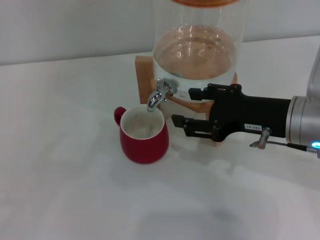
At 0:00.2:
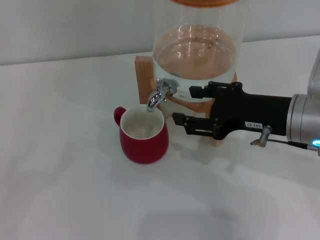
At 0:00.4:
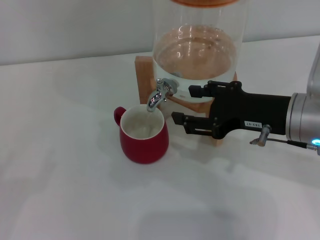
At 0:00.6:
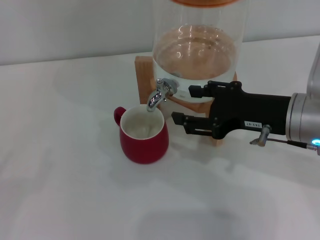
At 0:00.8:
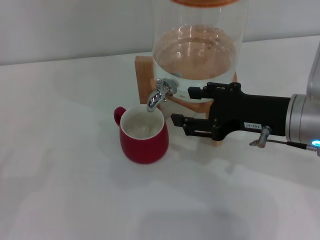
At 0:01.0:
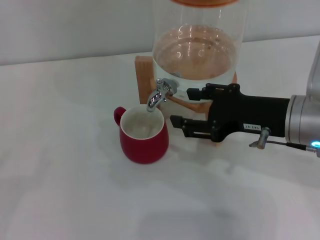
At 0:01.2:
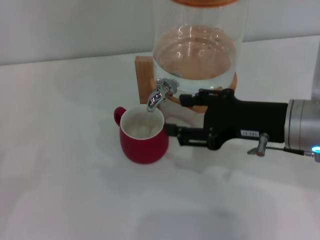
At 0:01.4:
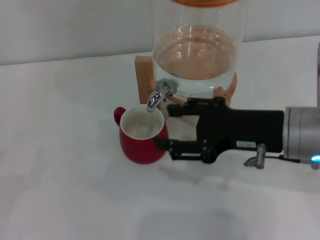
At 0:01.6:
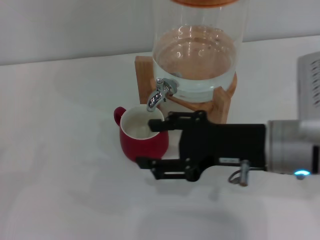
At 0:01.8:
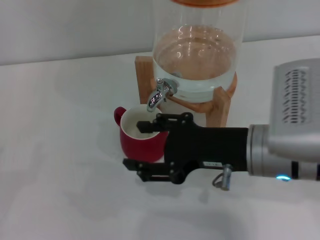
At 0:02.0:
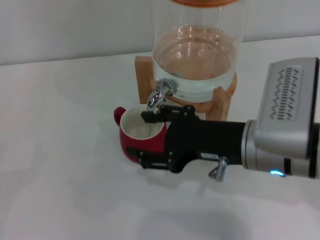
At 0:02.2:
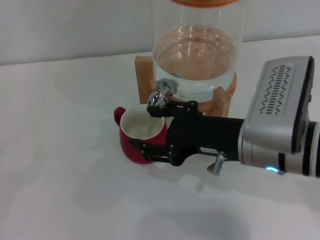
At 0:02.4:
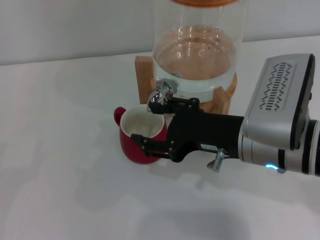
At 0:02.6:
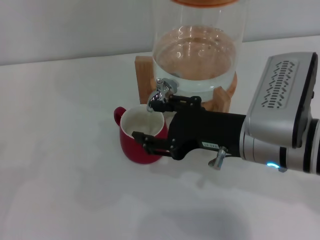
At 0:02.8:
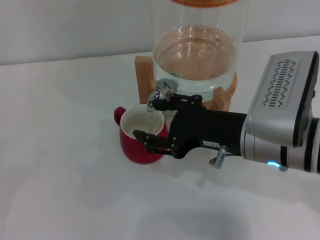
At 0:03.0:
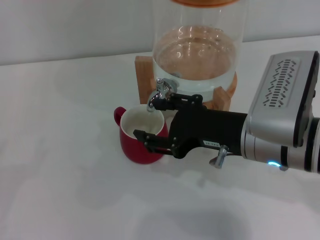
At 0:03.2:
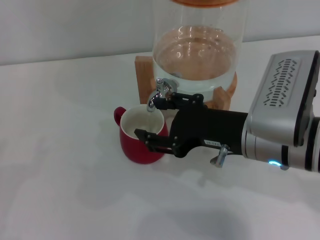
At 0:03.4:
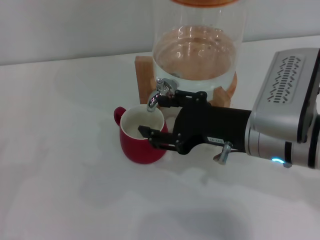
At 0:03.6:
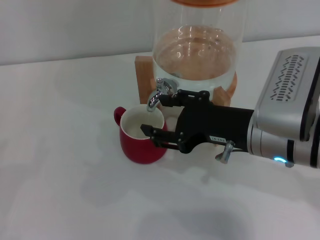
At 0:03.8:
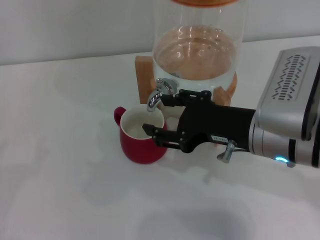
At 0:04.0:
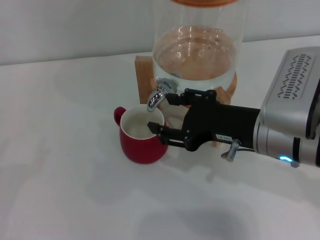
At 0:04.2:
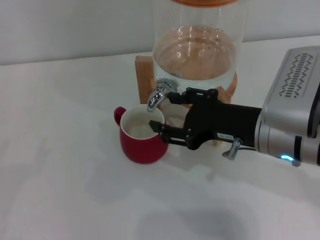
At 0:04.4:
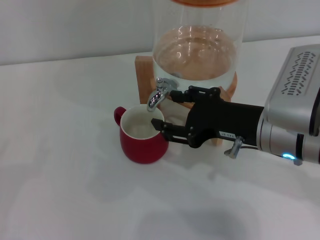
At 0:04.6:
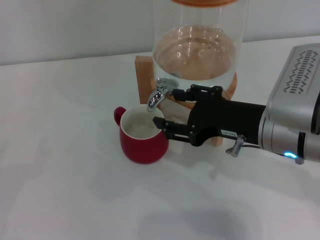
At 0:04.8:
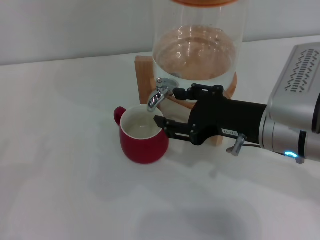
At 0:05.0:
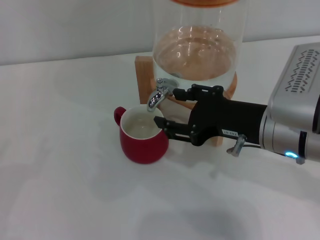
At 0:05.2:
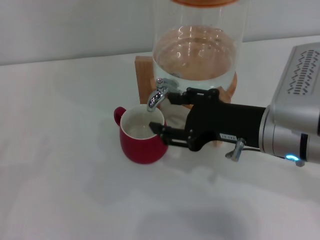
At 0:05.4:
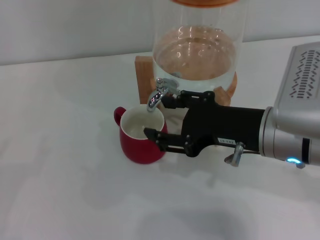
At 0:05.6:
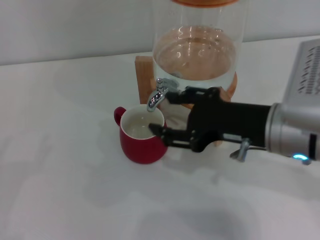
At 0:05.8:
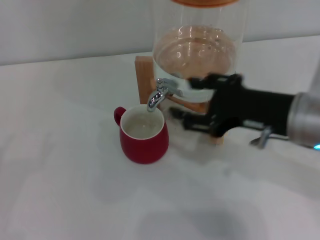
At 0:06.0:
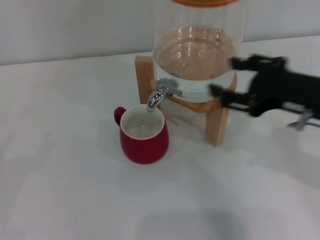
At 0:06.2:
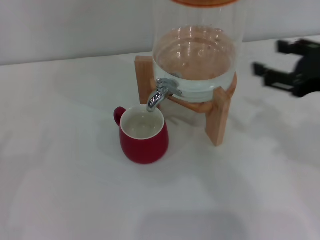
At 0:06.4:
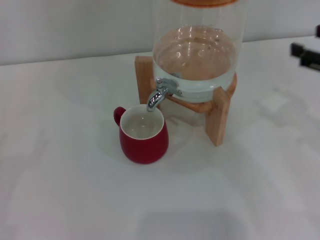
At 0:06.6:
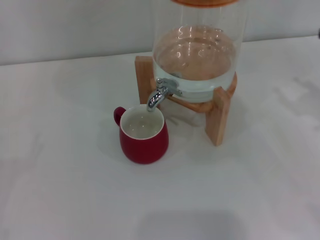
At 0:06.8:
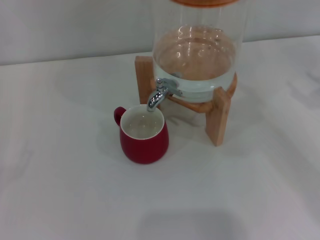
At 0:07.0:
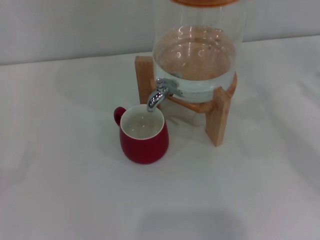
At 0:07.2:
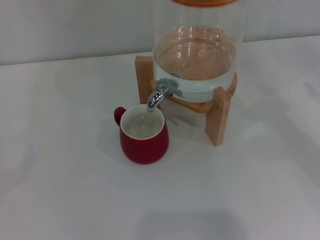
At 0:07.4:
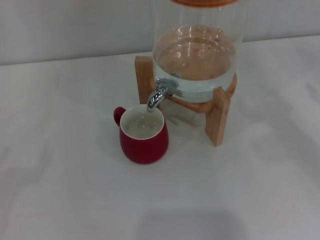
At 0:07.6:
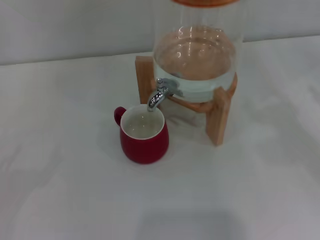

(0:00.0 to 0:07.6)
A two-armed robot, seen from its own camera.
Task of the whole recording: the left gripper pick up the red cup and place it horizontally under the faucet, the right gripper turn on the faucet to fill the cup, and then turn off the faucet.
Step, 0:00.0 - 0:02.2: Open the dispenser valve and fill the cup with water with the right gripper.
Step, 0:02.4 - 0:05.8: Close the dispenser valve with the right gripper.
0:00.0 - 0:04.6: The grippers move only a little.
0:04.6 - 0:06.0: The right gripper travels to the right by roughly 5 cm.
0:06.0 - 0:07.6: The right gripper goes approximately 20 cm to the right.
